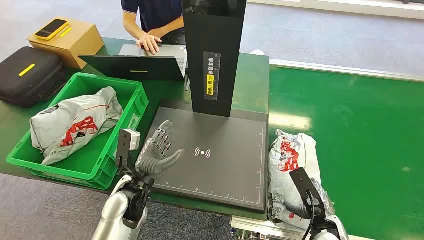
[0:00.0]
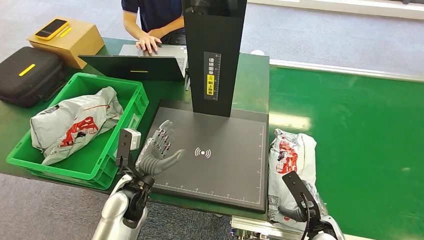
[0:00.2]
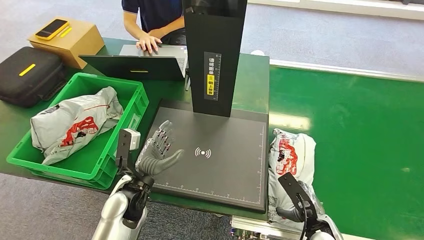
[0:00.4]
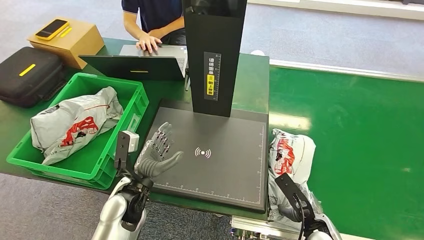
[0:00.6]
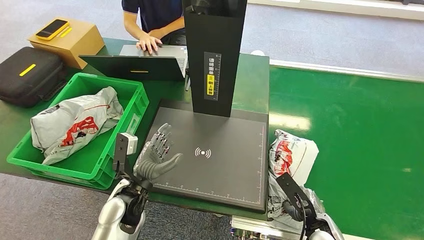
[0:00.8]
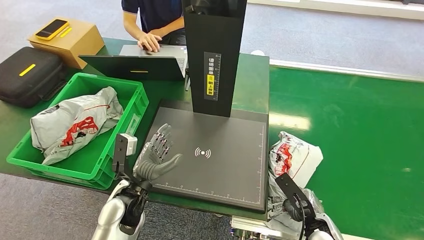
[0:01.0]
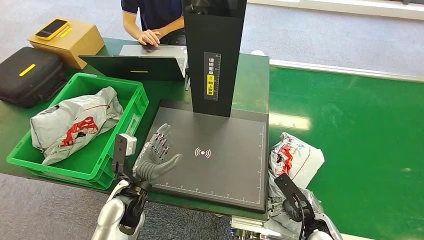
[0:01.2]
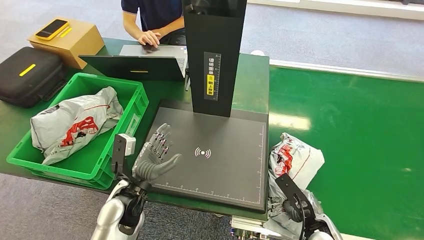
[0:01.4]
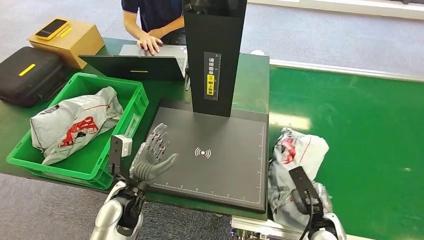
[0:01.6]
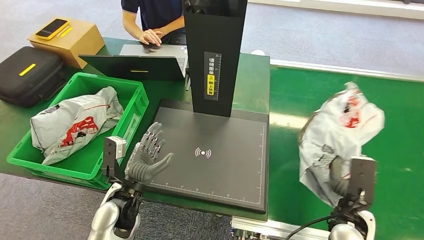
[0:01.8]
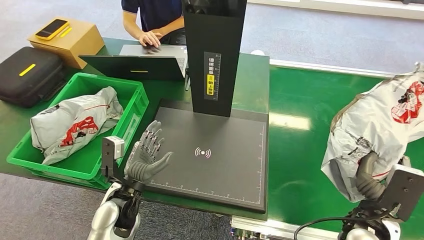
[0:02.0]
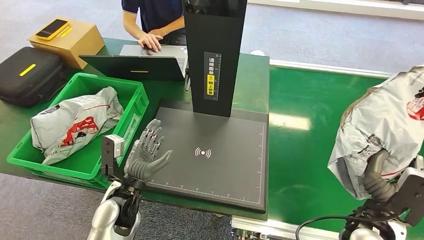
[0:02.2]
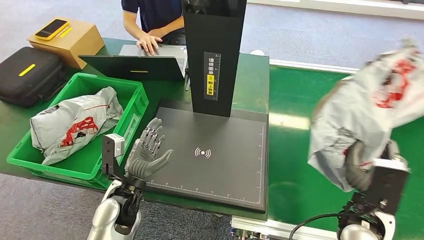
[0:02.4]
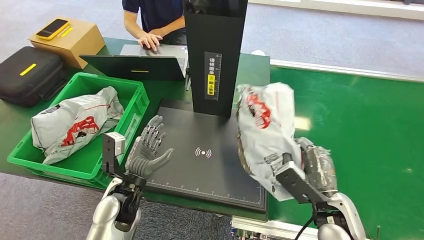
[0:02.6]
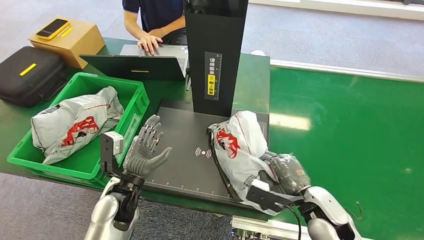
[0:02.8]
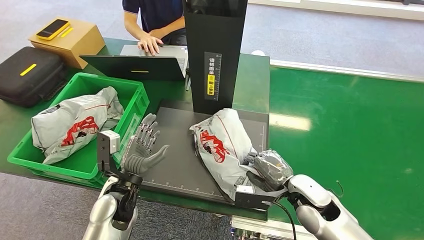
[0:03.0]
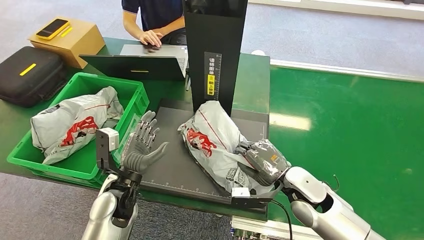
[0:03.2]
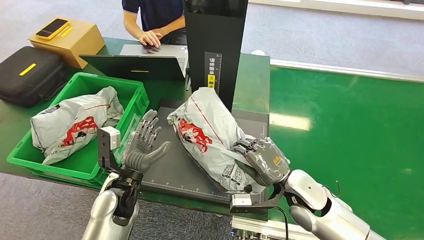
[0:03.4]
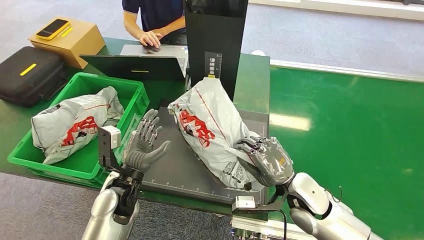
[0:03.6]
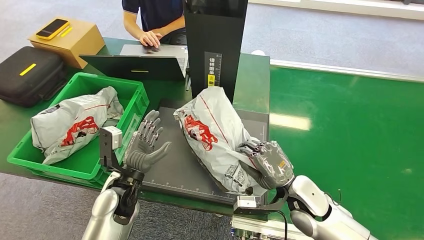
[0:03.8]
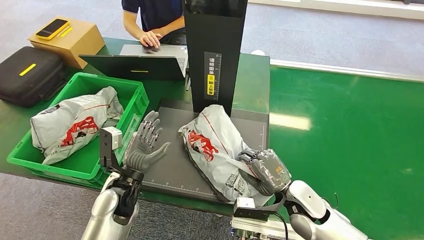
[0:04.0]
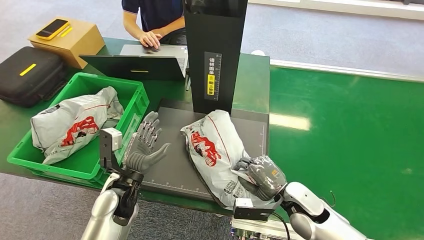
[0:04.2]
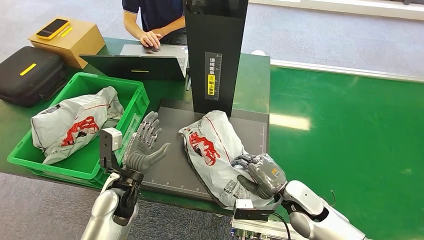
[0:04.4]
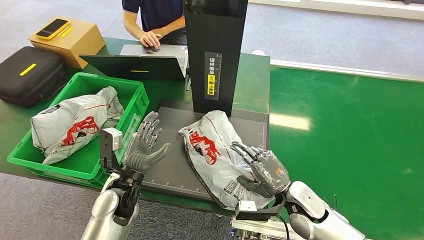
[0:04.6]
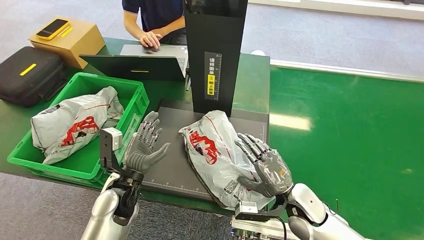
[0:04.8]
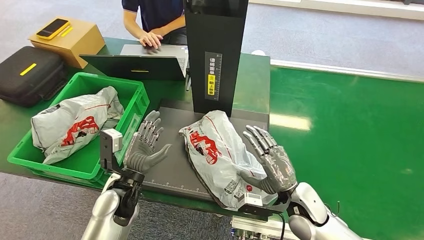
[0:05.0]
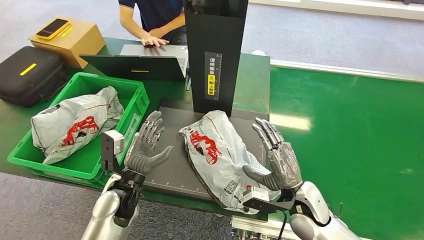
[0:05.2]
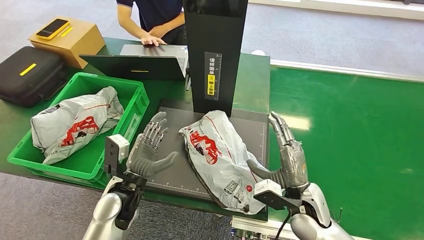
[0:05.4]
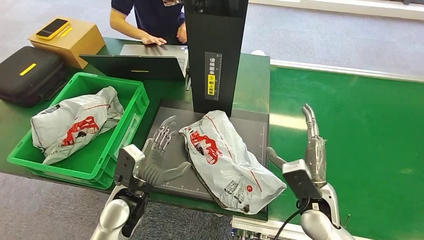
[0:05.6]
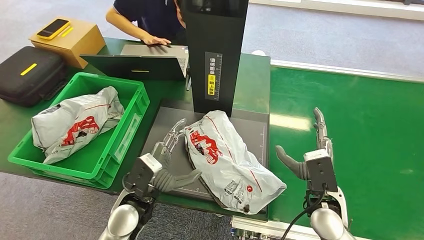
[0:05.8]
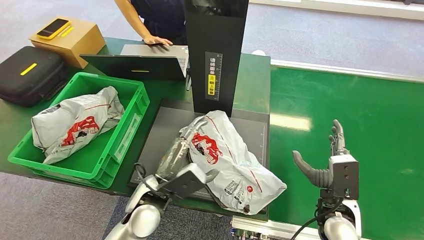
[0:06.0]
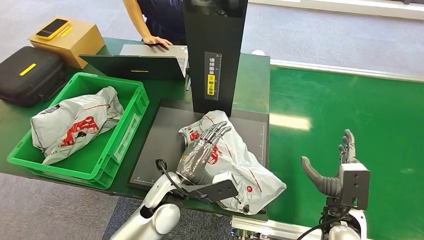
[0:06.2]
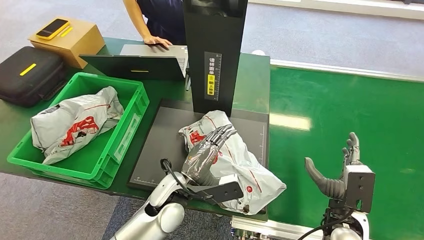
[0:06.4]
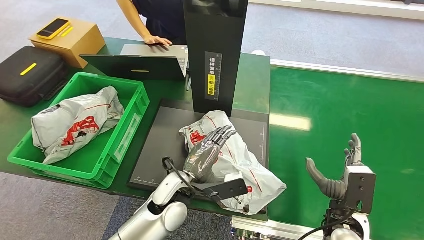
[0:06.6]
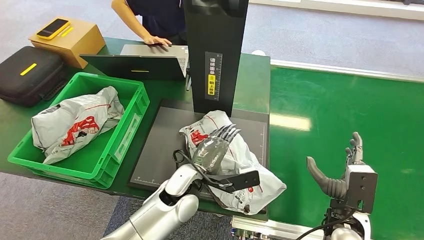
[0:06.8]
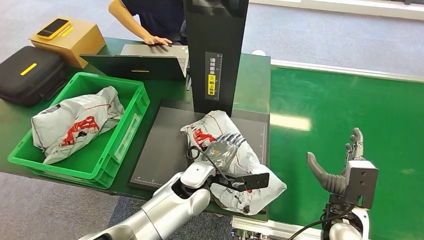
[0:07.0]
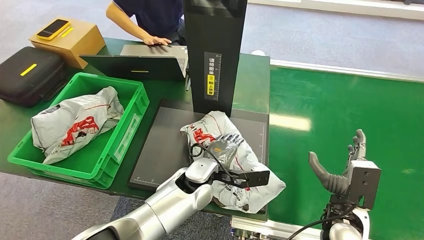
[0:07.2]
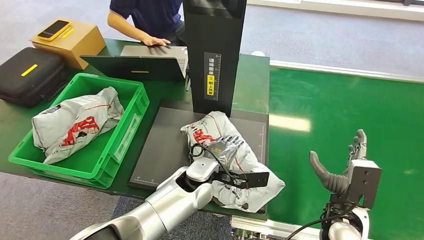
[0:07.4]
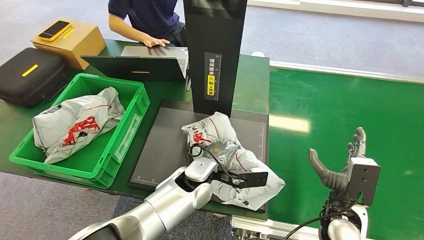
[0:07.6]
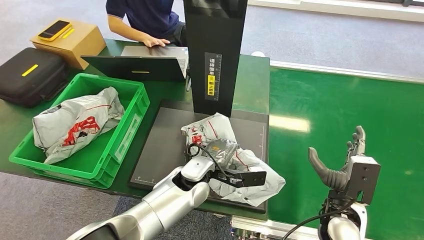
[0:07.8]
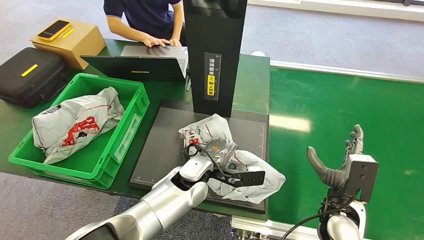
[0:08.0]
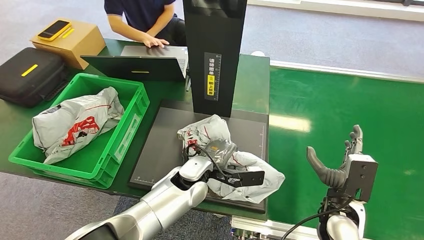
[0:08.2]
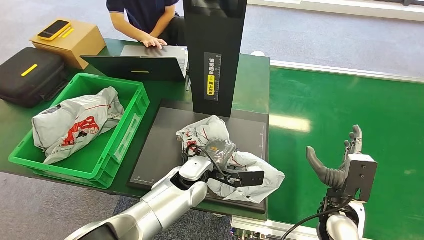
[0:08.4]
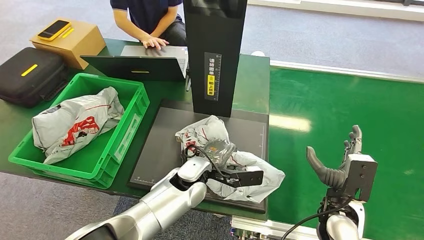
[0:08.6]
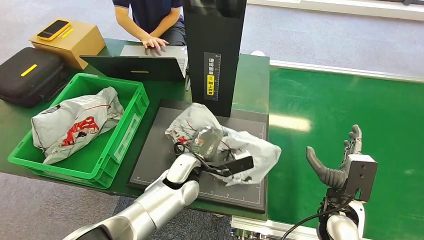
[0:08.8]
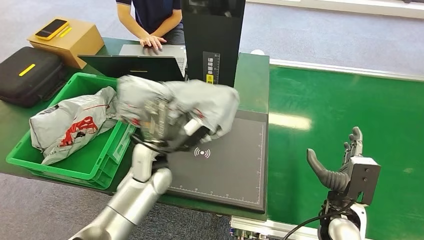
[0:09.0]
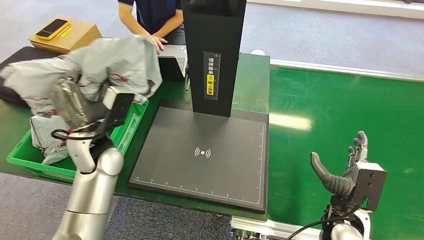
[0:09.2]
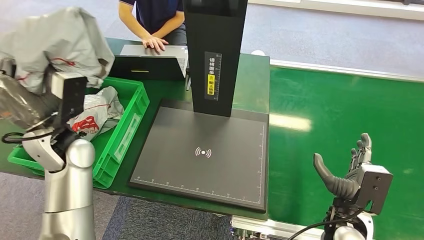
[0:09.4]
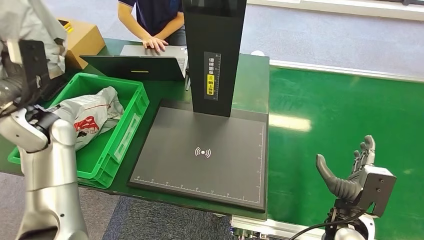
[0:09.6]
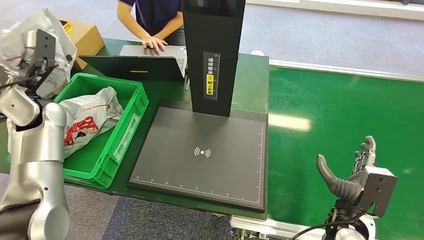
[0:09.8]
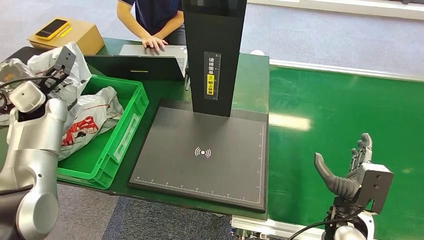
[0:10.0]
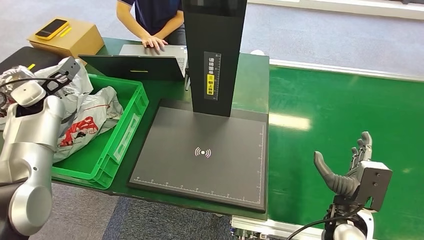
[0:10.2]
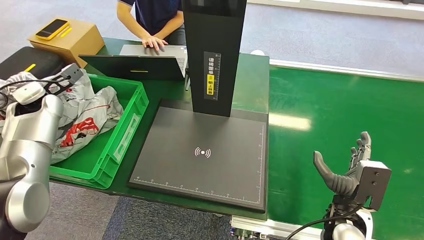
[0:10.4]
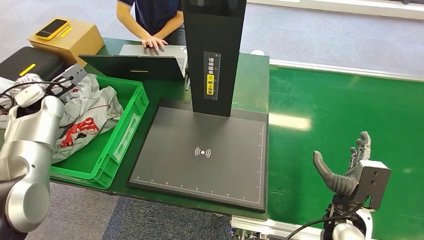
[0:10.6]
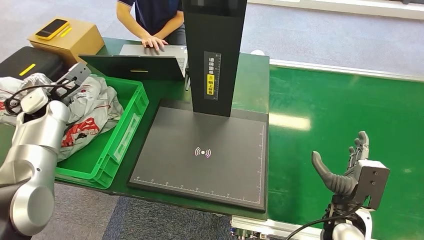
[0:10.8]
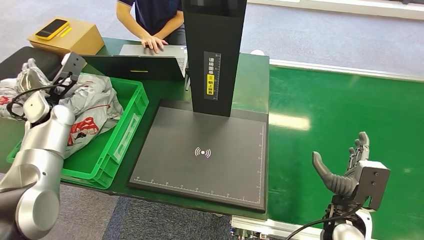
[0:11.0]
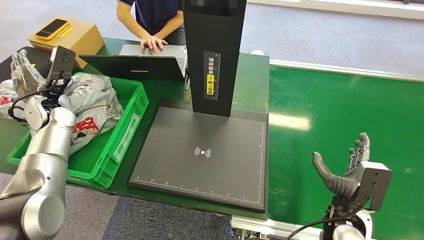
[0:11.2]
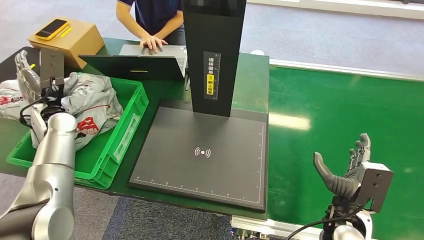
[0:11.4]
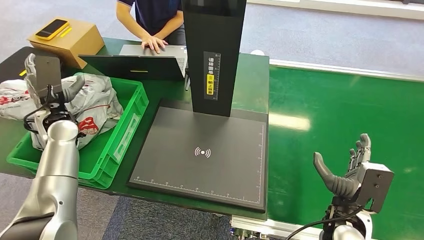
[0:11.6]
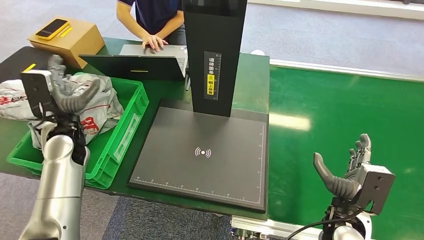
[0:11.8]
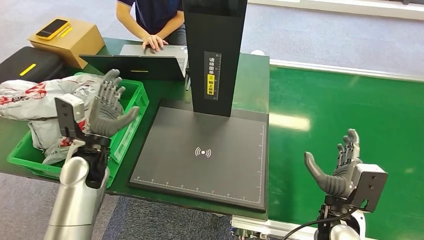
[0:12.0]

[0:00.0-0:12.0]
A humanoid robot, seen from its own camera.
Step, 0:00.0 to 0:02.2: Pick up the package from the conveyor belt.
Step, 0:02.4 to 0:05.2: Place the package onto the inbound machine.
Step, 0:05.4 to 0:09.2: Pick up the package from the inbound machine.
Step, 0:09.4 to 0:12.0: Place the package into the parcel locker.
0:01.6 to 0:03.0: The right hand is displaced forward and upward by roughly 15 cm.
0:04.4 to 0:06.0: The right hand is displaced backward by approximately 5 cm; the left hand heads to the right, covering roughly 5 cm.
0:10.4 to 0:12.0: The left hand travels to the right, backward and downward by some 20 cm.
